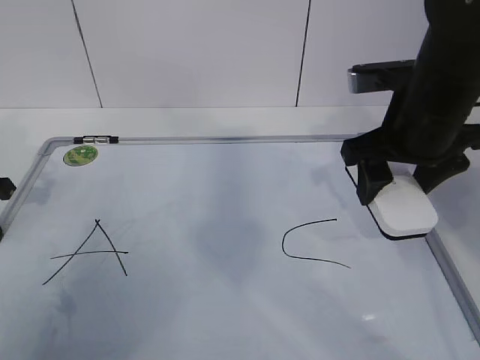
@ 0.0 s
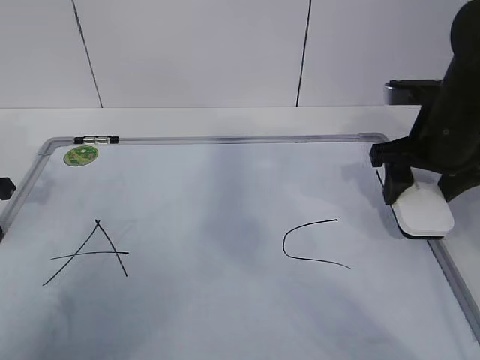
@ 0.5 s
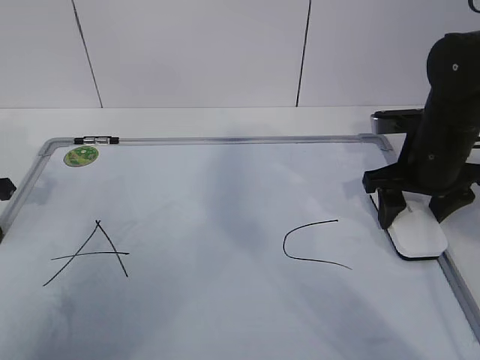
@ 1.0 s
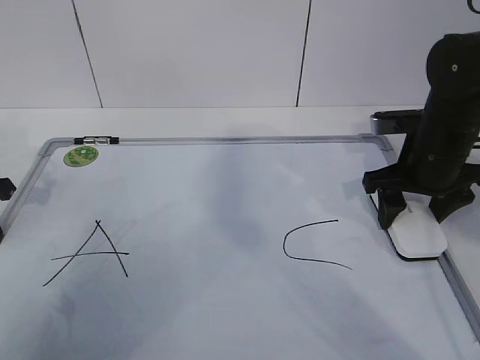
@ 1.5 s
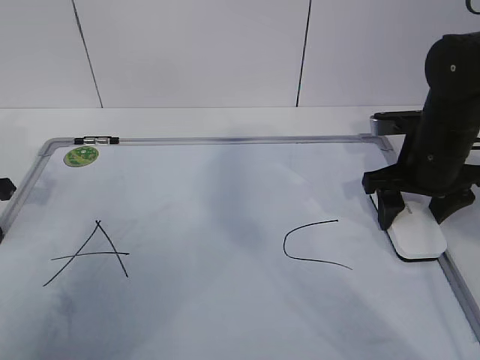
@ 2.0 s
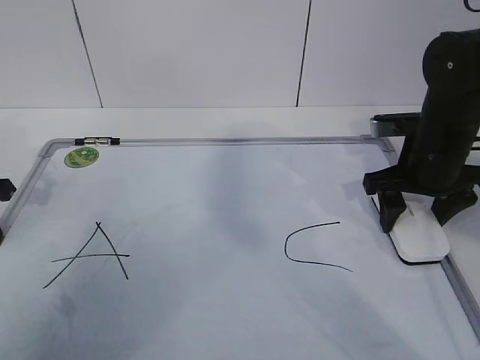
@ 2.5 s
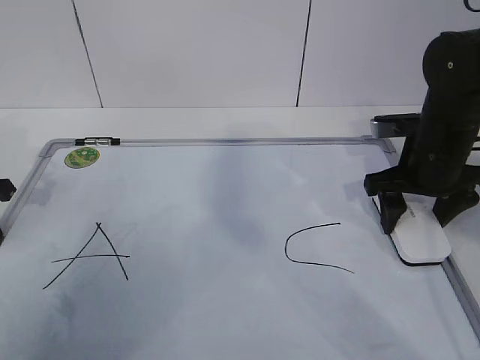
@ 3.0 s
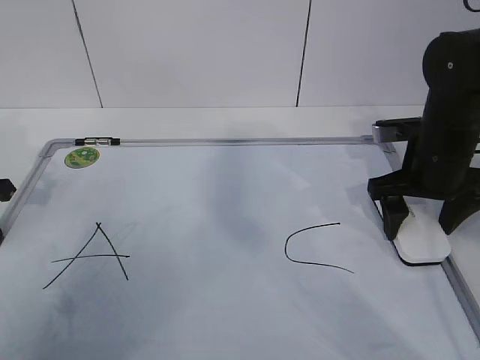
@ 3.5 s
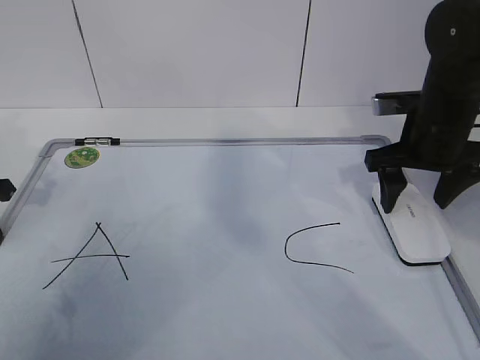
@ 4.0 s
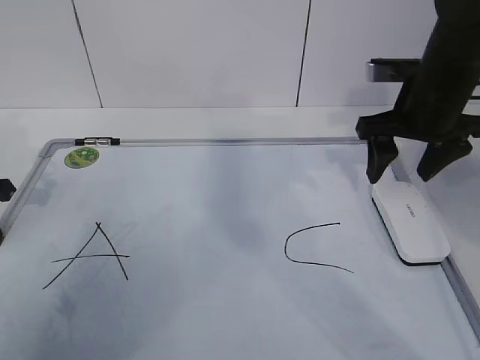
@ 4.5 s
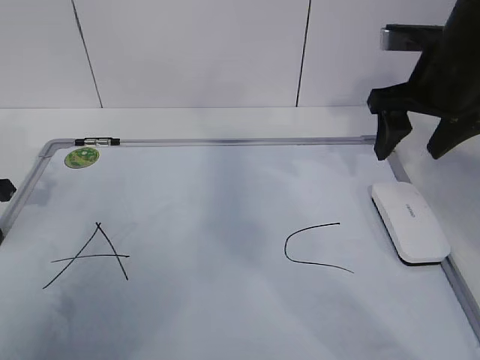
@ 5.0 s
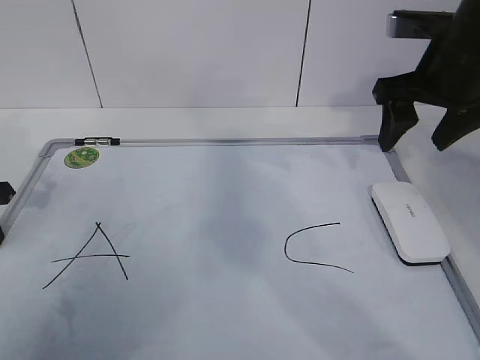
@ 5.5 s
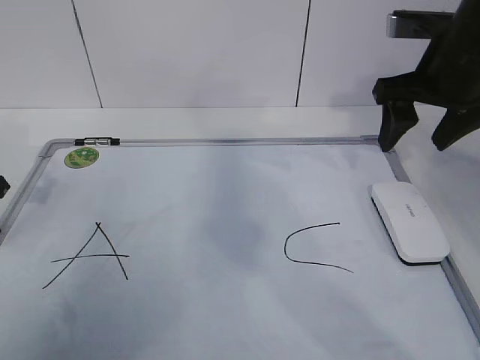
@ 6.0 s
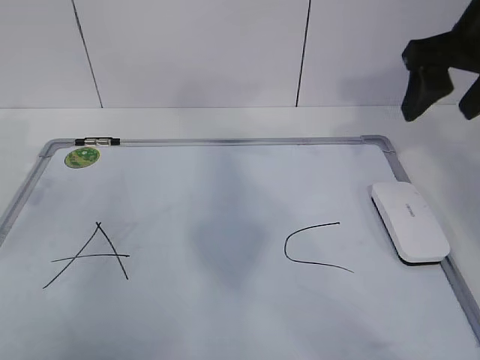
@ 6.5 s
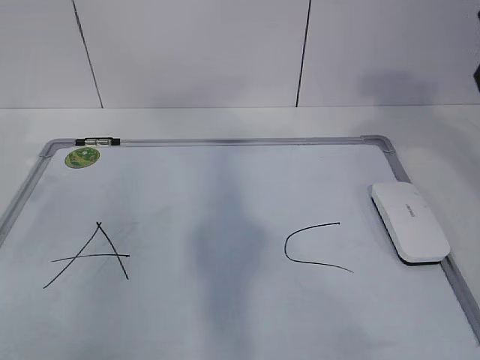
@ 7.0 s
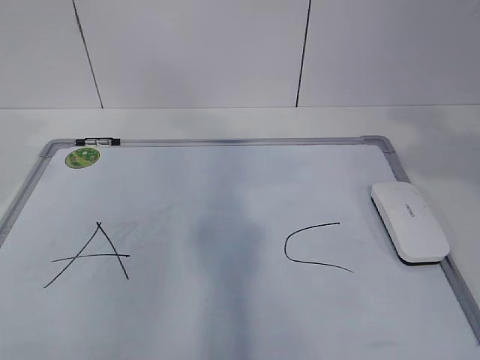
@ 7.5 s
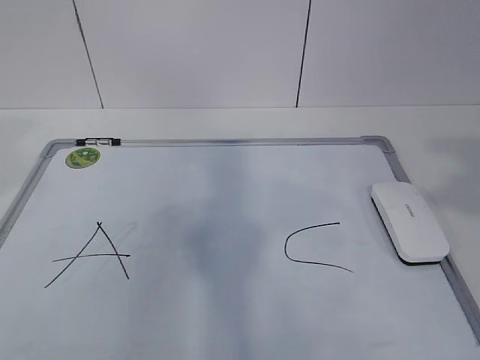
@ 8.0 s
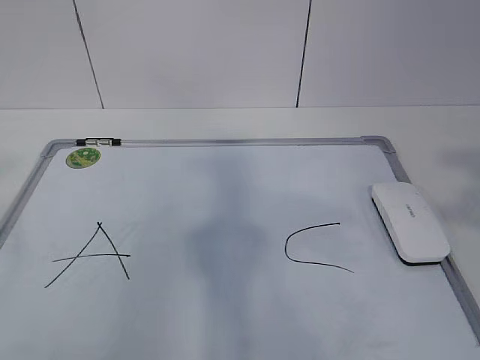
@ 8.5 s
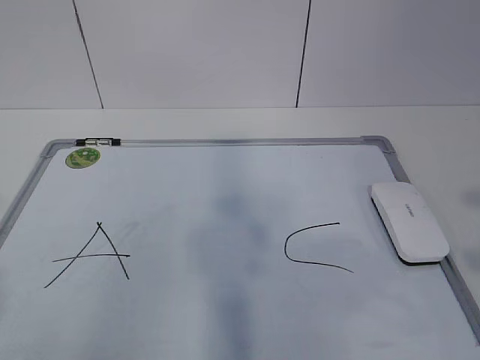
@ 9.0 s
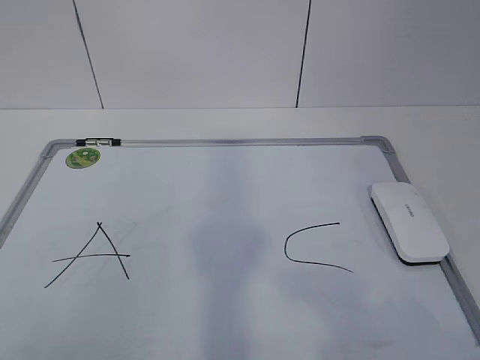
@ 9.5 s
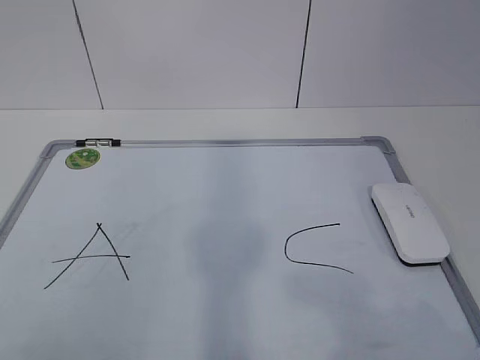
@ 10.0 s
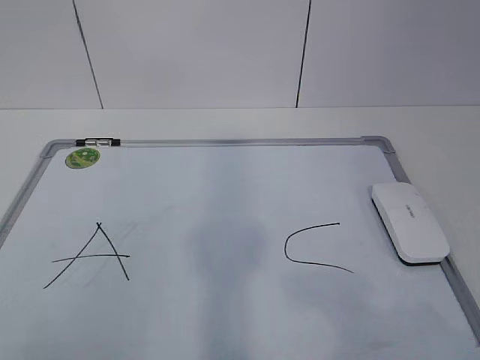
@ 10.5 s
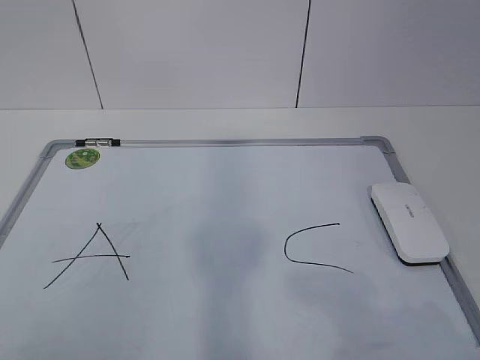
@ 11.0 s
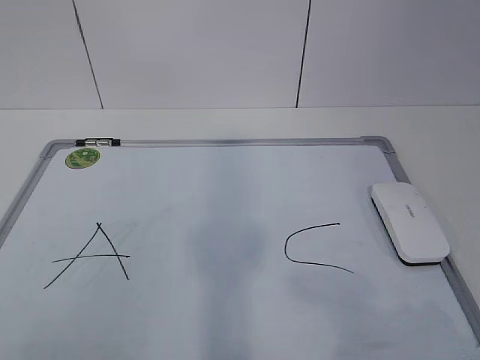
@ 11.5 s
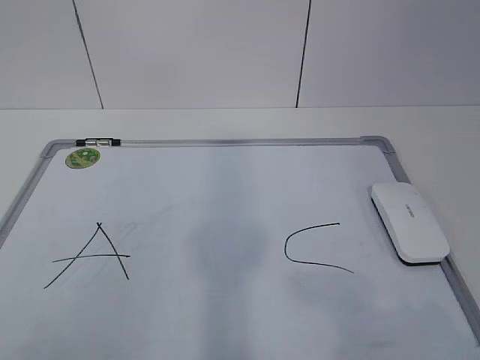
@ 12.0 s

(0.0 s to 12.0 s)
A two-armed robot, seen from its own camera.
Task of the whole recording: pick up the eraser on the blackboard and erase the letter "B".
0.0 s - 2.0 s: The right gripper shifts roughly 10 cm downward.
2.0 s - 4.0 s: There are only small adjustments of the grippers.
4.0 s - 6.0 s: The right gripper heads upward, covering about 10 cm.
6.0 s - 8.0 s: The left gripper heads upward and backward, covering approximately 30 cm. The right gripper shifts about 30 cm backward and upward, and closes.
8.0 s - 10.0 s: The right gripper heads downward and backward, covering roughly 15 cm.
10.0 s - 12.0 s: Both grippers stay put.

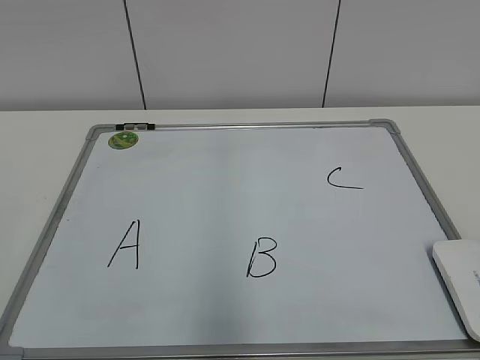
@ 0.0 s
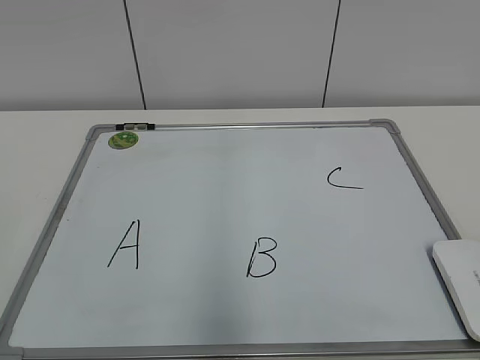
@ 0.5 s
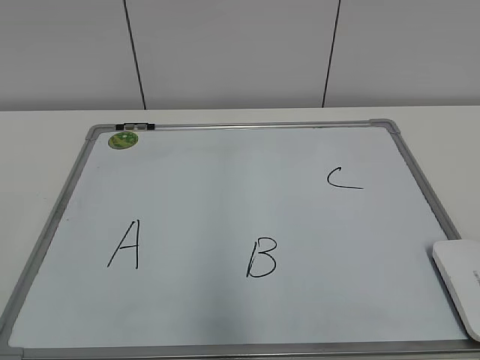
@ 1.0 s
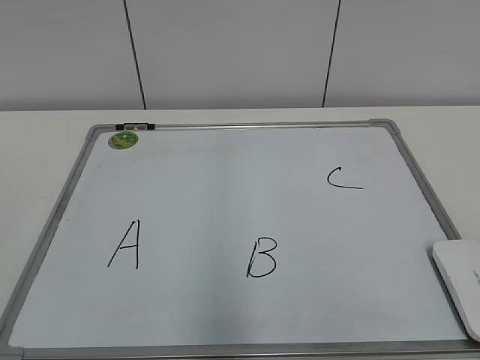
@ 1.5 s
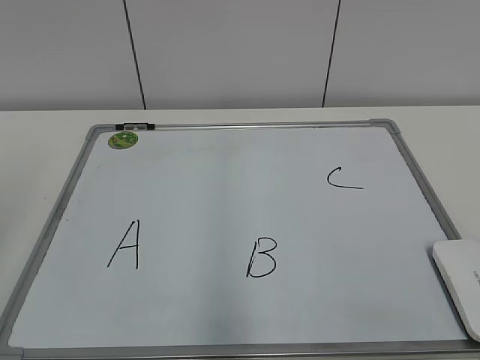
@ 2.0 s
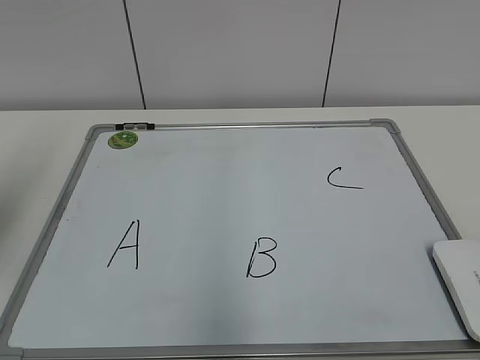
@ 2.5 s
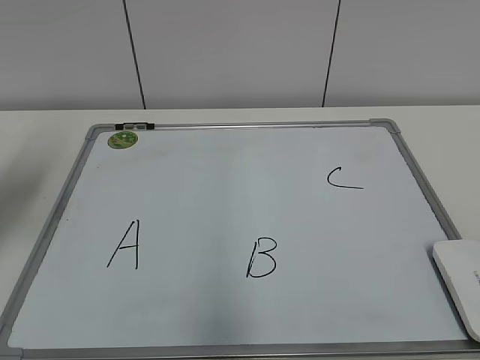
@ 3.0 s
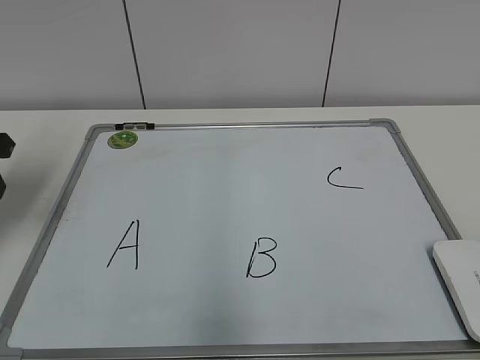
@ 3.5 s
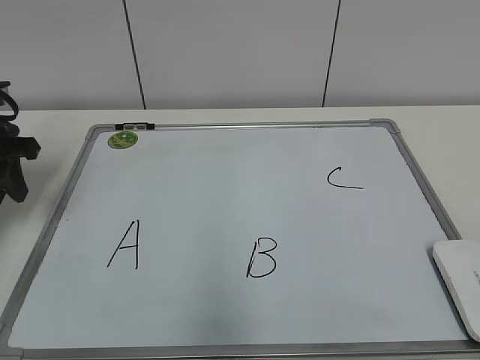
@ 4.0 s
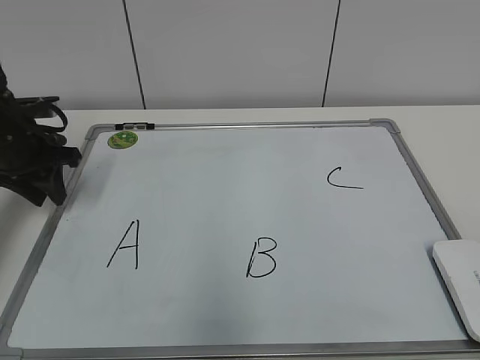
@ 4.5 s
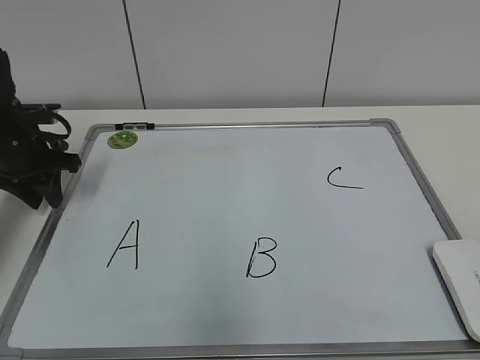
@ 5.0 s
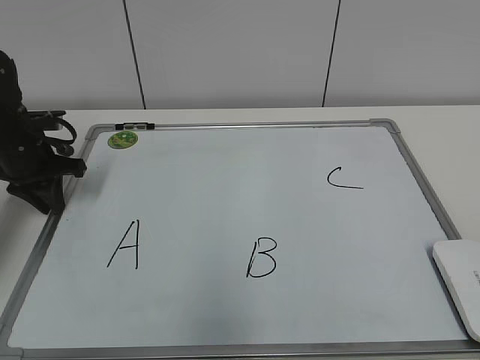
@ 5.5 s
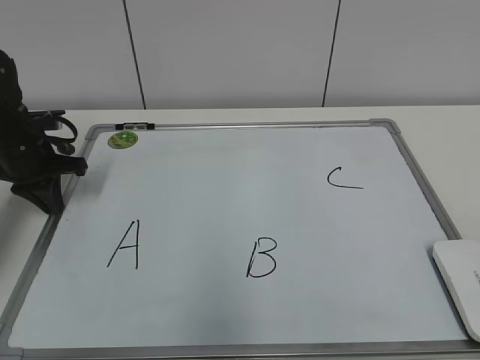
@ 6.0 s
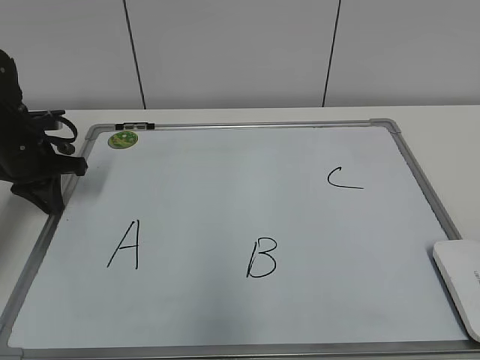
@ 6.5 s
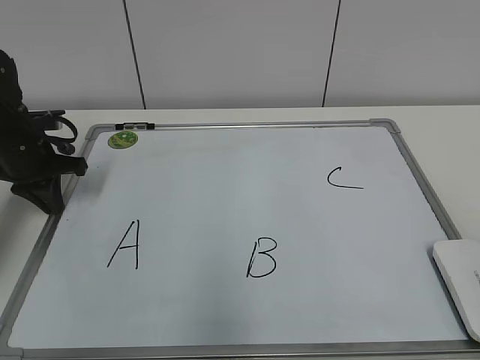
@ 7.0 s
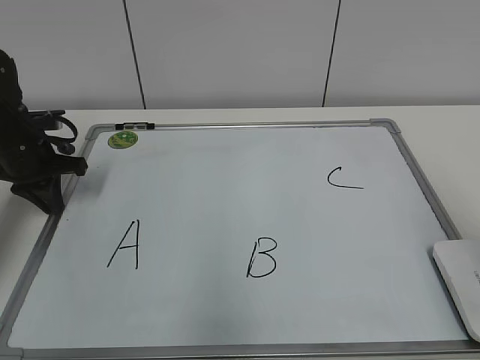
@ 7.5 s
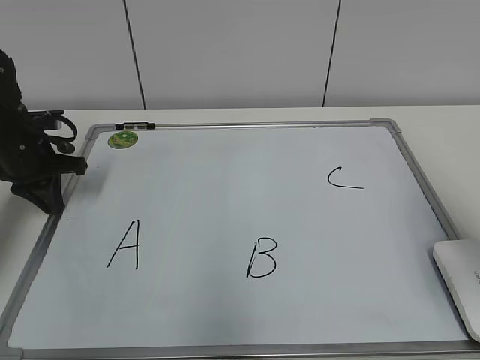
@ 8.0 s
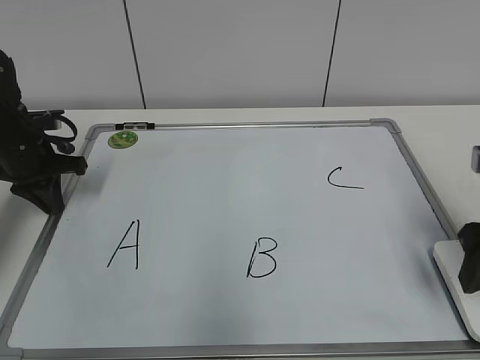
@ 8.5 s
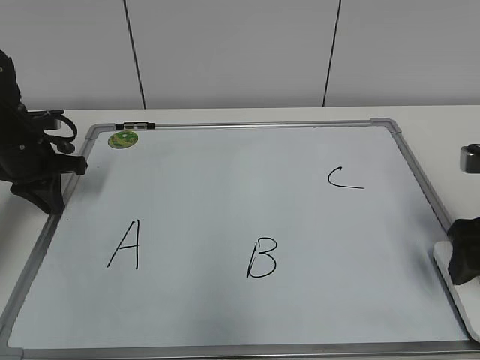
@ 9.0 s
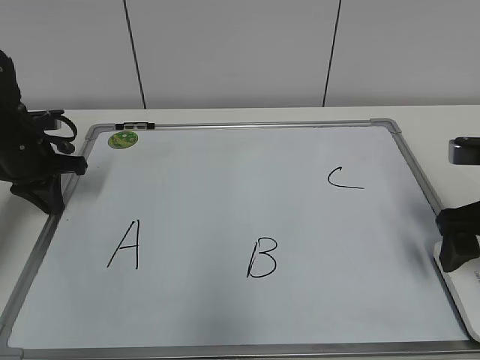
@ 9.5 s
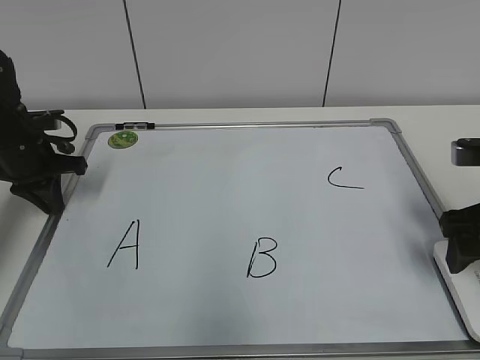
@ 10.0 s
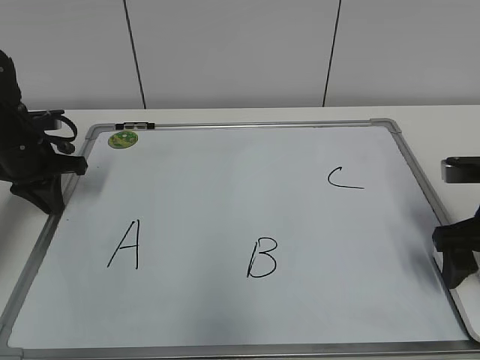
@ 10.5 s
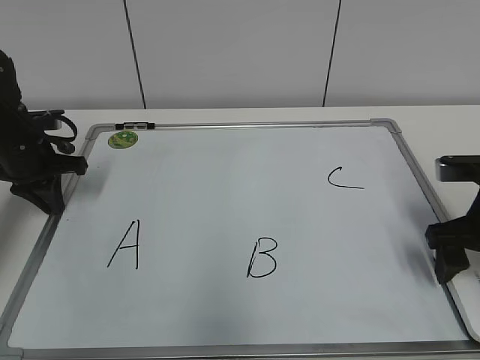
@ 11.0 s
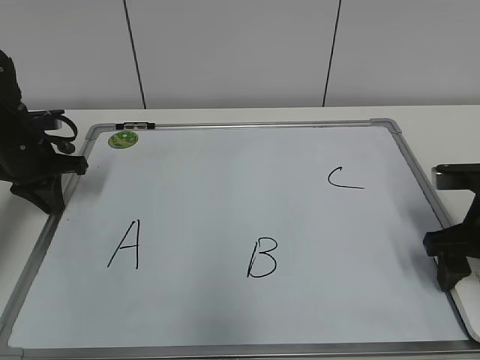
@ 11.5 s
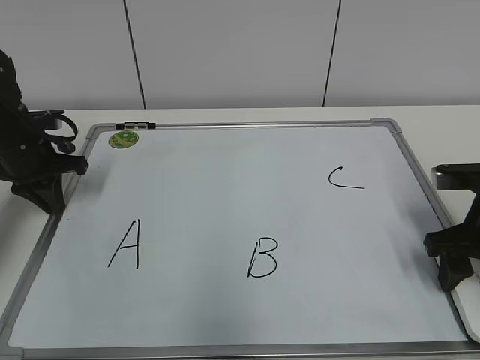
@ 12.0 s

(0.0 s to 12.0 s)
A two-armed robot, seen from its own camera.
Task of the whole recording: pick up the eraser on the blackboard and erase the letter "B".
Step, 0.0 s - 5.5 s: Hold the drawing board steady with your left hand.
Step, 6.0 s - 12.0 s: Grab the eraser with your right hand.
2.0 s - 4.0 s: The left gripper heads forward and downward, covering about 30 cm.
4.0 s - 6.0 s: The left gripper heads downward and forward, covering about 10 cm, and closes.
6.0 s - 8.0 s: The right gripper heads forward, covering some 20 cm.
8.0 s - 10.0 s: The right gripper moves downward and forward, roughly 10 cm, and opens up.
10.0 s - 12.0 s: The right gripper closes up.

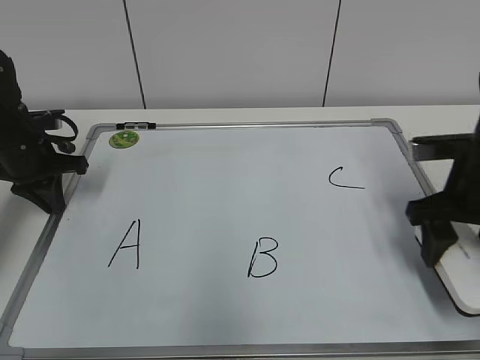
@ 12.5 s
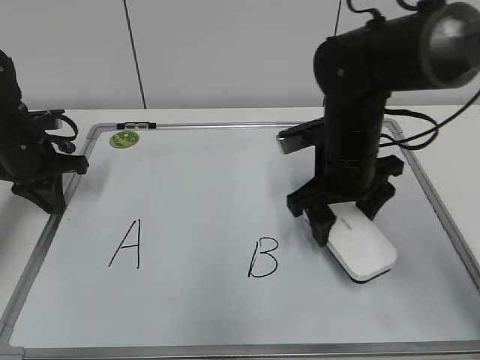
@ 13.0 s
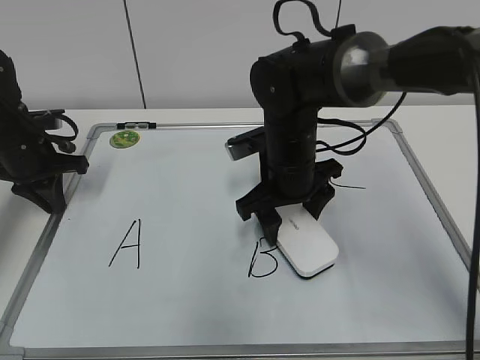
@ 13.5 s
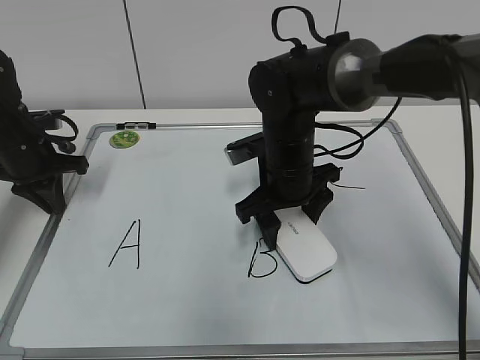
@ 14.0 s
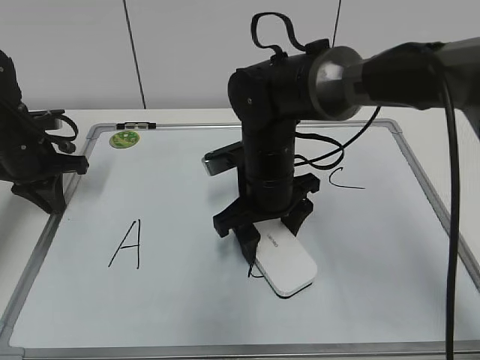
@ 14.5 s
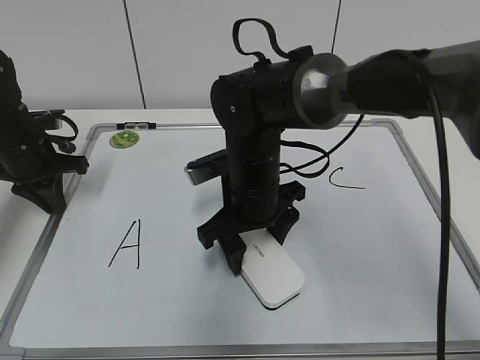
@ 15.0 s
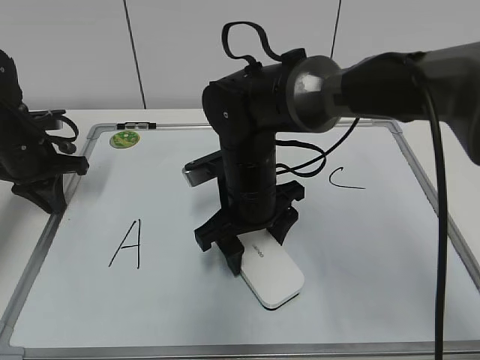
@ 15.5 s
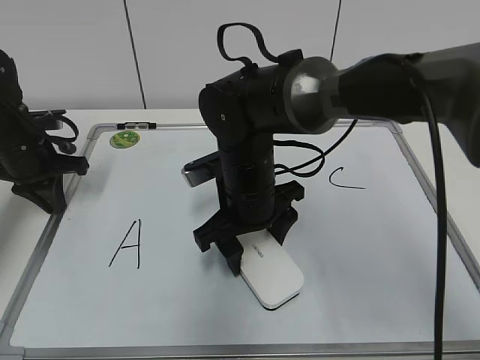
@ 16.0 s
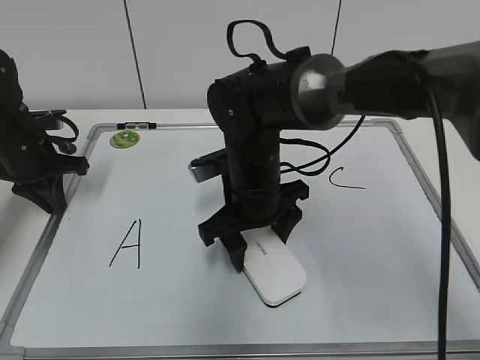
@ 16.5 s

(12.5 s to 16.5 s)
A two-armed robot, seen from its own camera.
Task of the whole recording: pick up the eraser on the blackboard and erase the letter "B".
12.5 s - 14.5 s: The right gripper goes roughly 20 cm to the left.
14.5 s - 16.5 s: The grippers move only a little.
